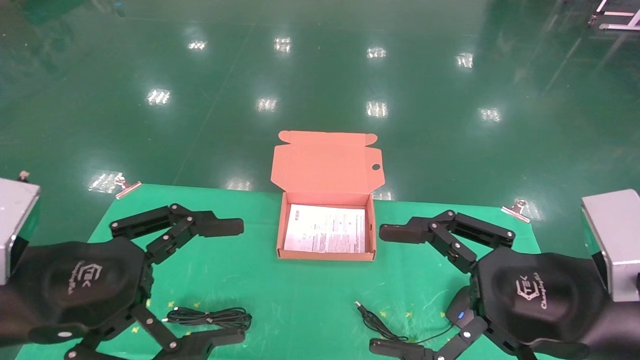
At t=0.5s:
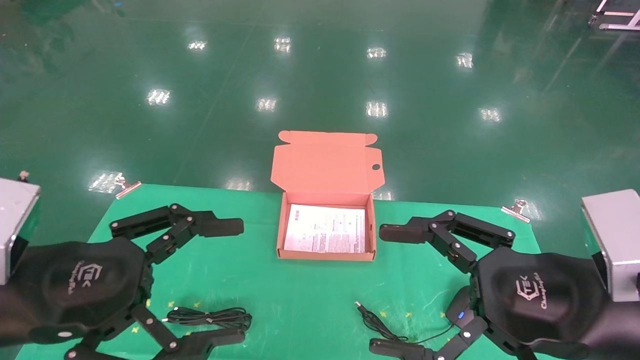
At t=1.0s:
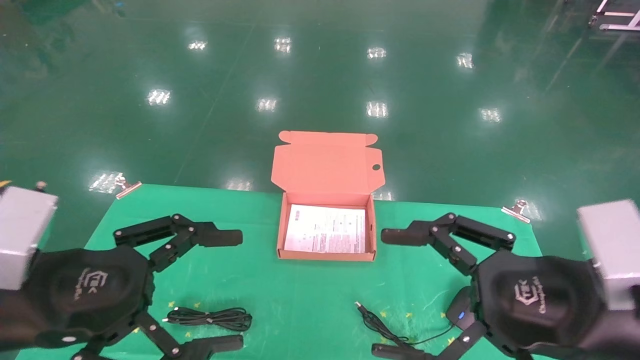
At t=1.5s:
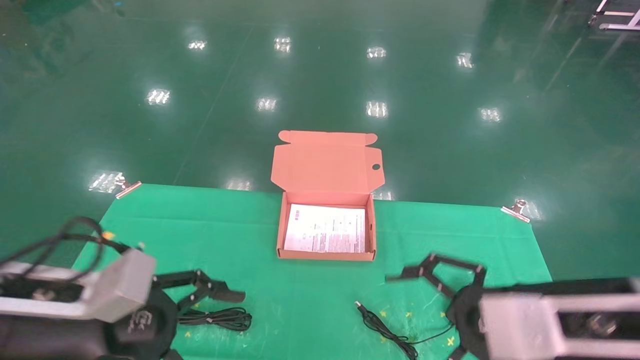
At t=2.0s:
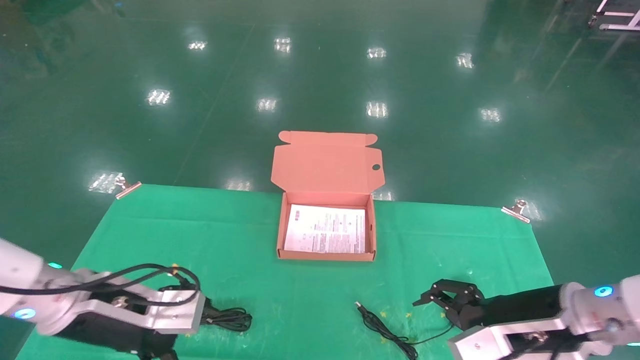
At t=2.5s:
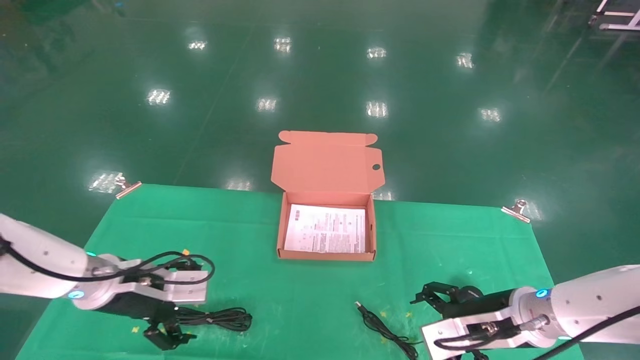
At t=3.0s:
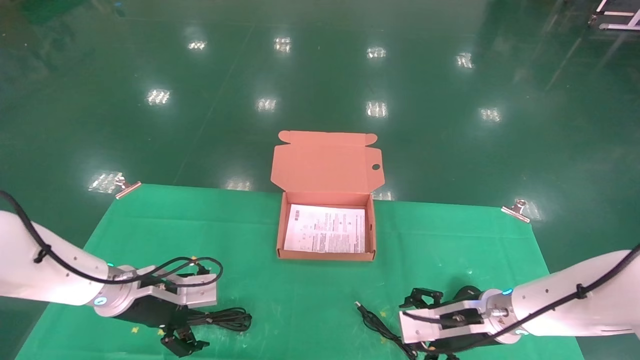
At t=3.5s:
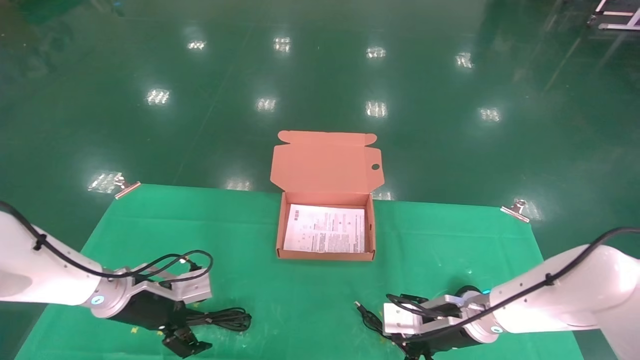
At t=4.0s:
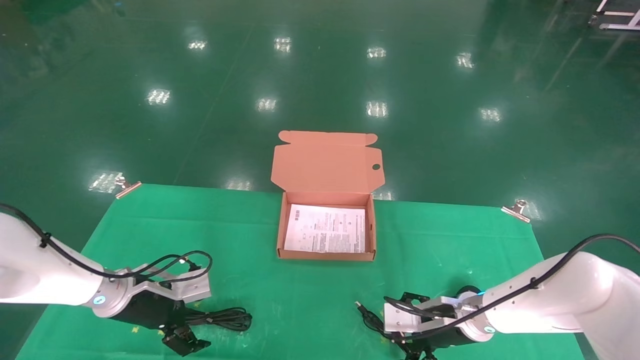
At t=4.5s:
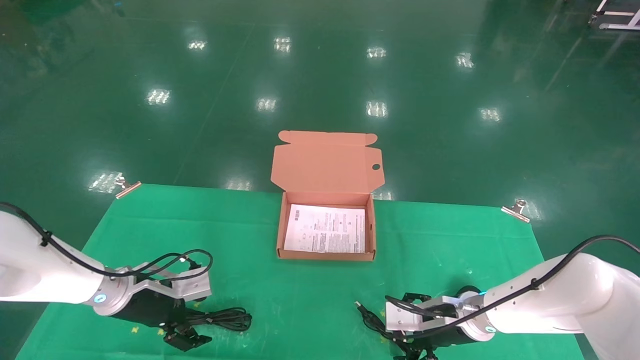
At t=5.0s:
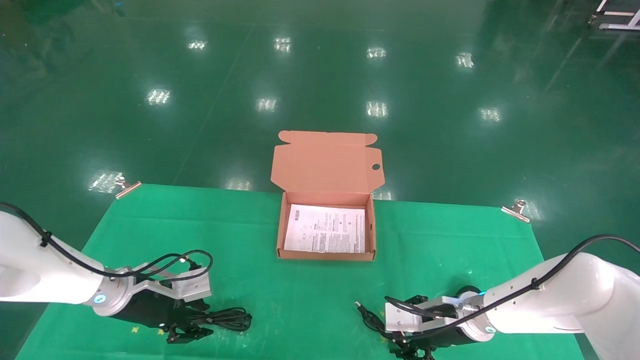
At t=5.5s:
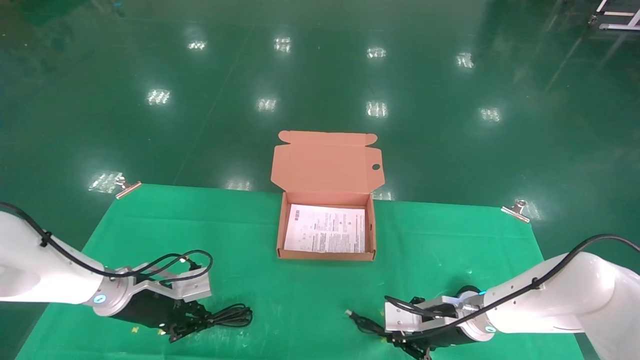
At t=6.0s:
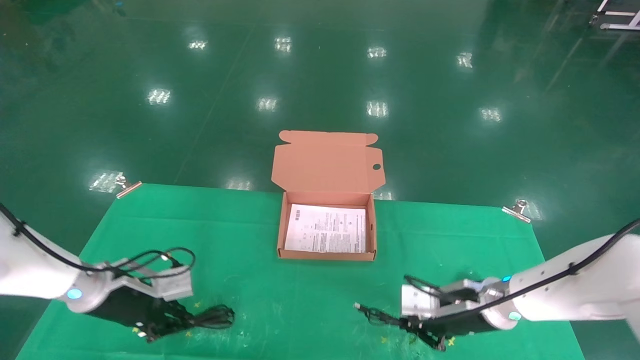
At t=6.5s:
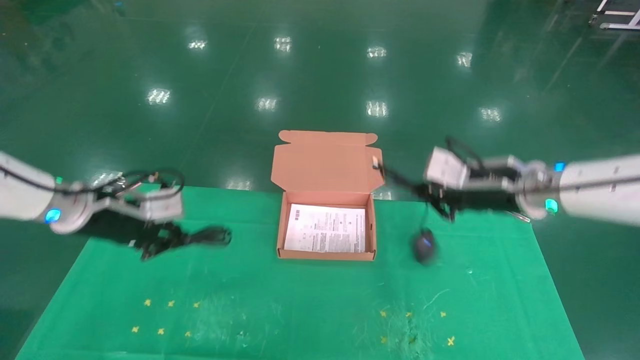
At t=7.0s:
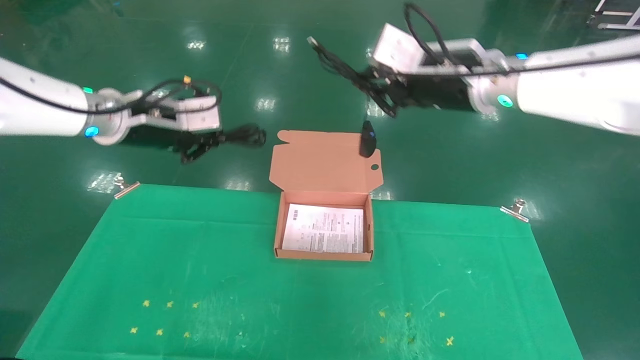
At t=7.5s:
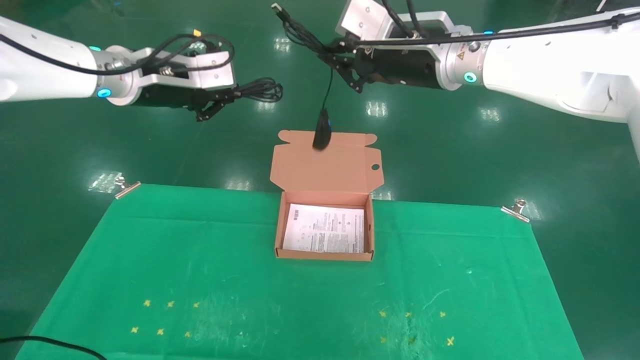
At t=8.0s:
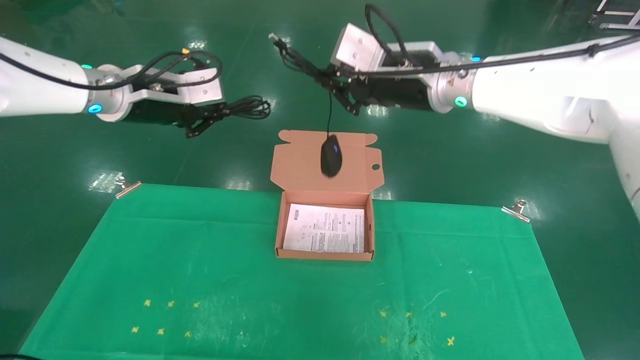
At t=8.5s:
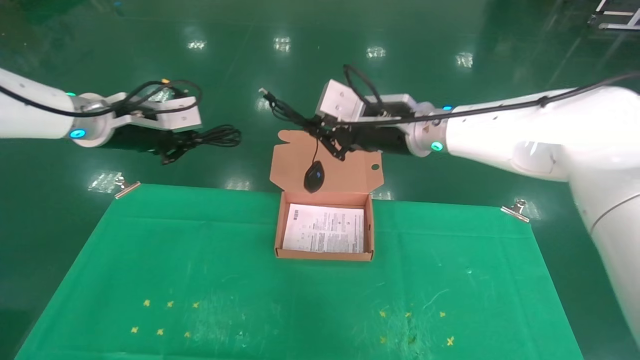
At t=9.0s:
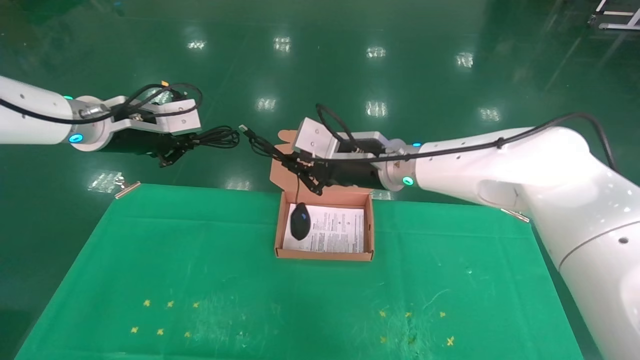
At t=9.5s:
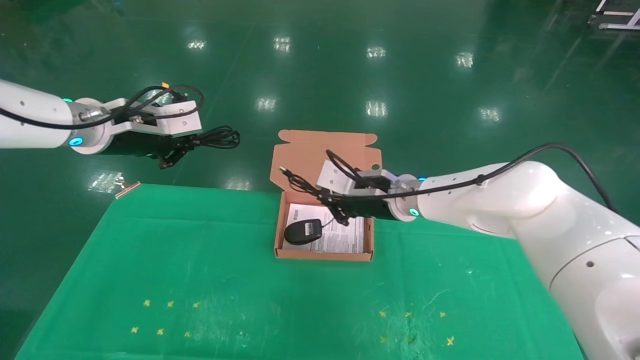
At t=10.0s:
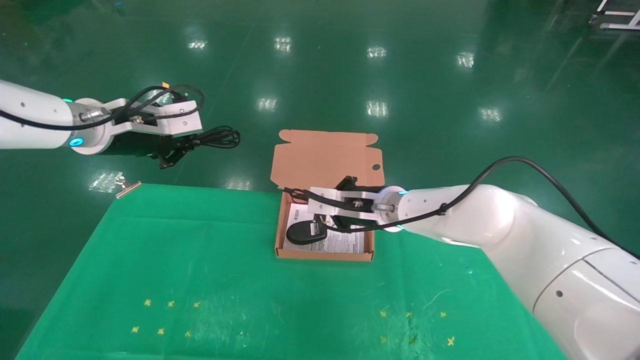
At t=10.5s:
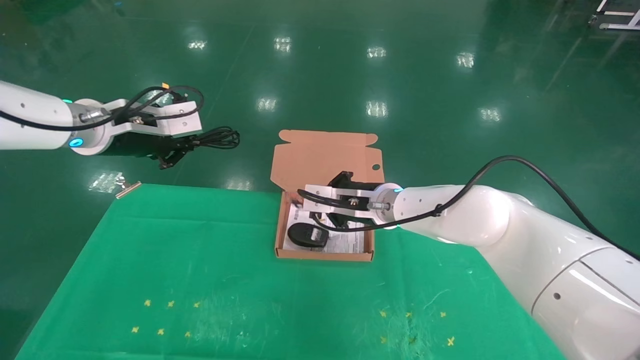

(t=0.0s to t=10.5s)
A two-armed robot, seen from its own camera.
Task of the whole recording: grasp data cable left put into box grasp mouse right put into box.
Step, t=1.0s - t=6.0s: Grab and pick up both the mouse and power cord from the accessory packaging area at the same time.
t=0.0s - t=2.0s: Both grippers move forward and downward, roughly 15 cm.
t=2.0s - t=4.0s: Both grippers travel together forward and downward, approximately 15 cm.
t=4.0s - t=6.5s: Both grippers travel together upward, about 20 cm. The left gripper closes, while the right gripper closes its fingers.
t=6.5s - t=8.5s: The left gripper shifts some 10 cm upward. Meanwhile the right gripper heads to the left, covering approximately 15 cm.
t=8.5s - t=10.5s: The right gripper shifts roughly 15 cm downward.

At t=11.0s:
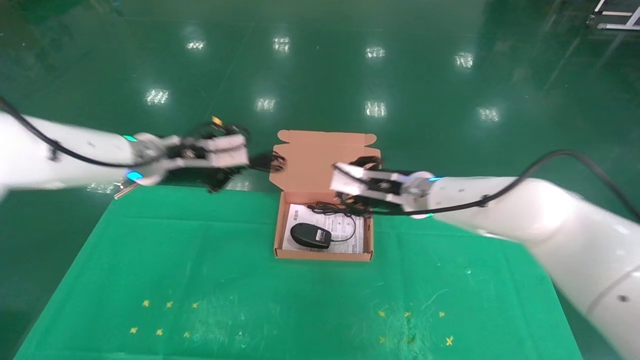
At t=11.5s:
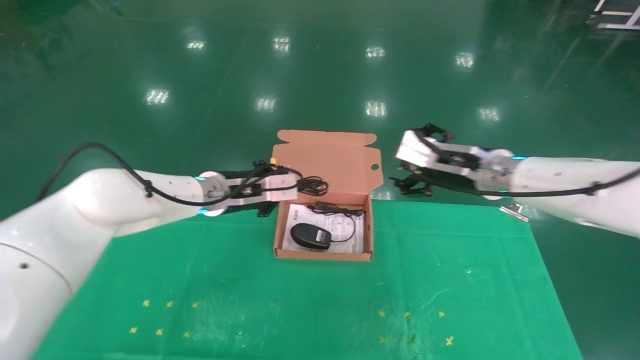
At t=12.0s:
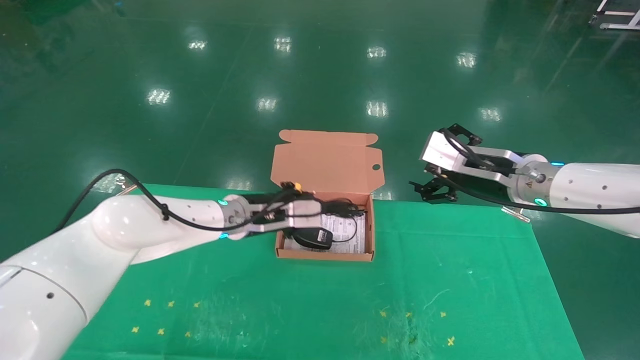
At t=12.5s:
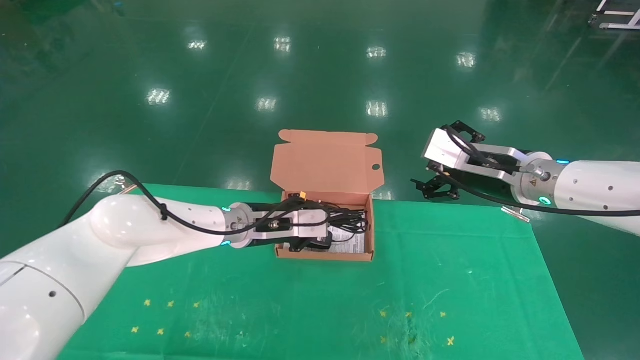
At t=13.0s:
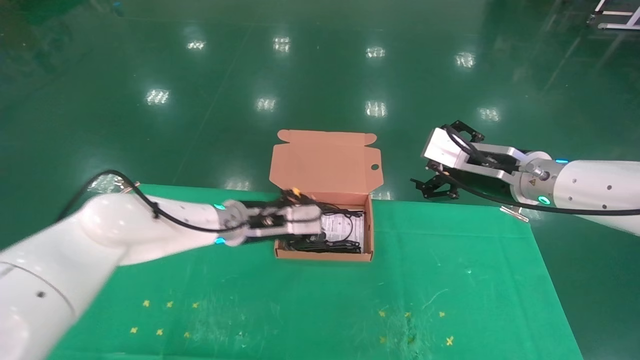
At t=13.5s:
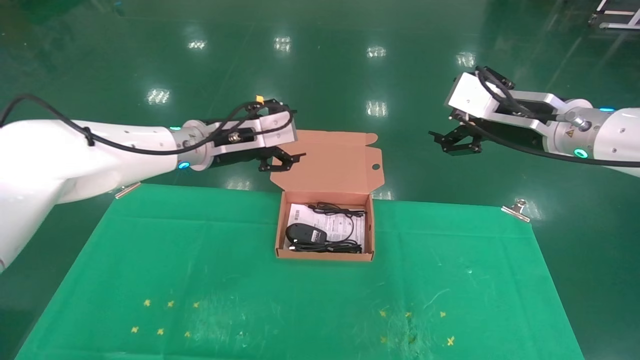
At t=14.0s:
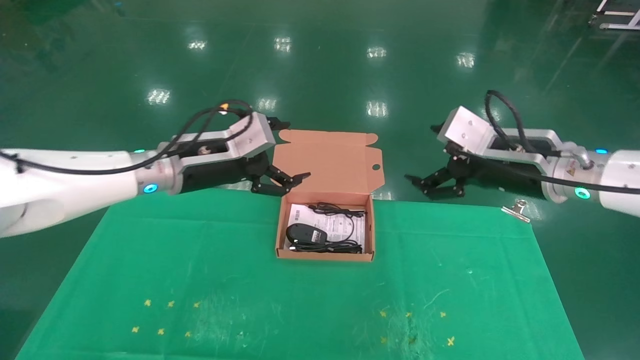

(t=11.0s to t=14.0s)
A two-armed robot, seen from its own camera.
Task of the whole recording: grasp data cable left put into box grasp mouse right put into box.
Step, t=11.0s - t=13.0s: Place the mouse and power cord into the box.
t=11.0s - t=12.5s: The right gripper moves to the right and backward, approximately 15 cm, and opens its fingers. Meanwhile the left gripper is displaced downward and to the right by about 15 cm.
t=12.5s - t=14.0s: The left gripper is displaced upward, to the left and backward by about 15 cm, and opens.

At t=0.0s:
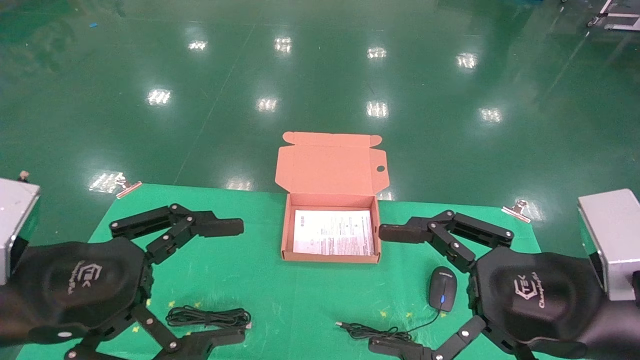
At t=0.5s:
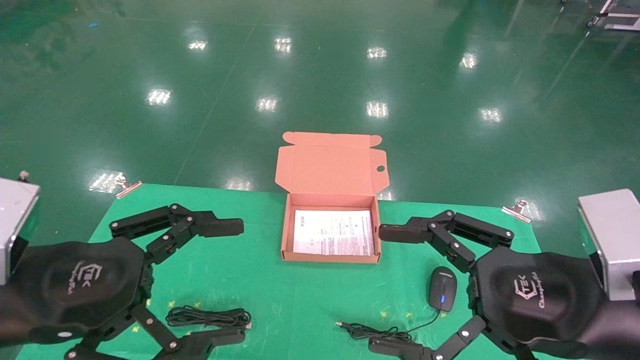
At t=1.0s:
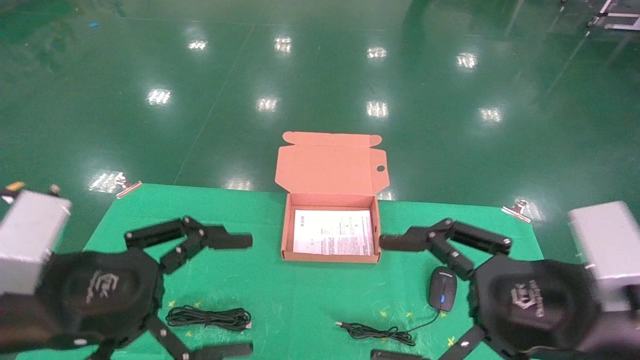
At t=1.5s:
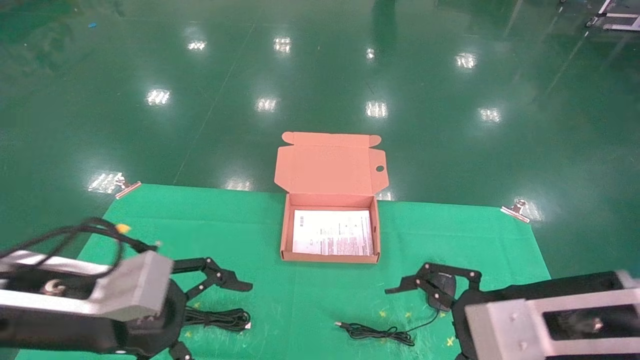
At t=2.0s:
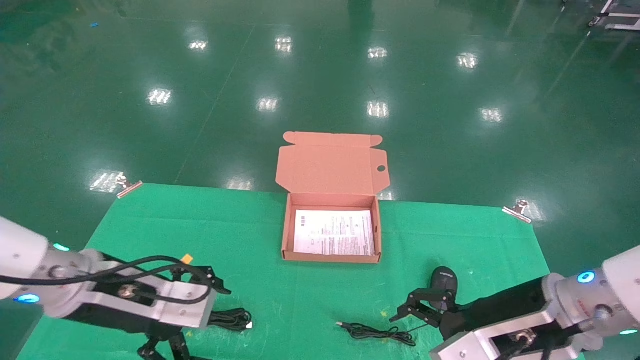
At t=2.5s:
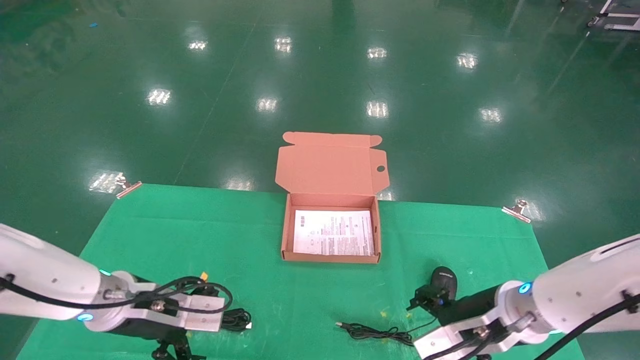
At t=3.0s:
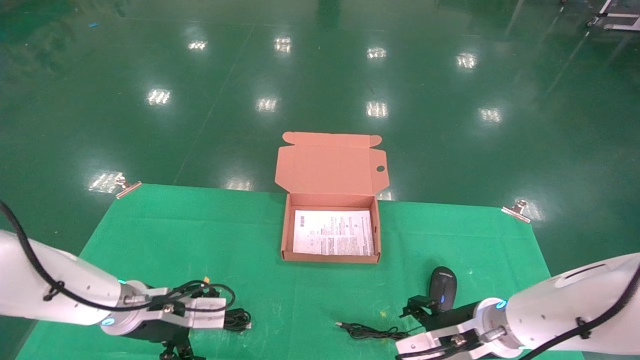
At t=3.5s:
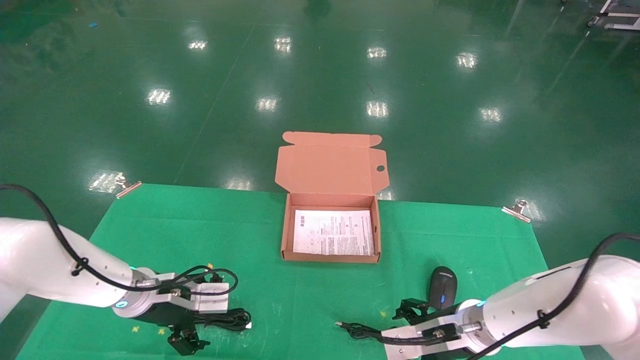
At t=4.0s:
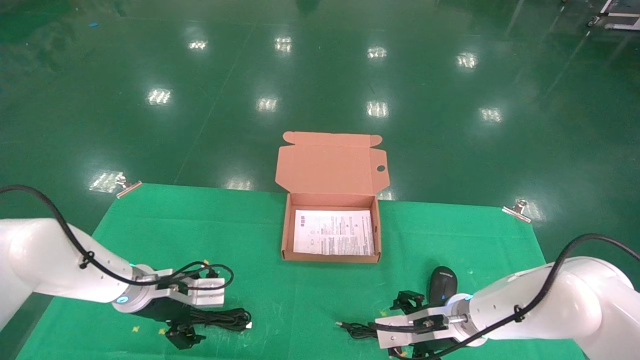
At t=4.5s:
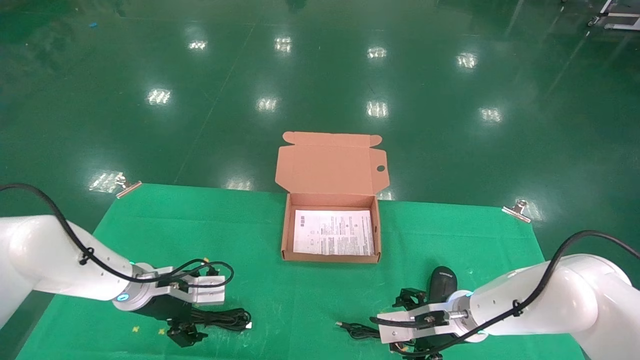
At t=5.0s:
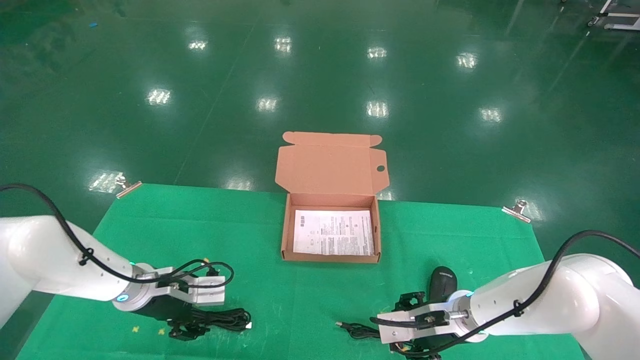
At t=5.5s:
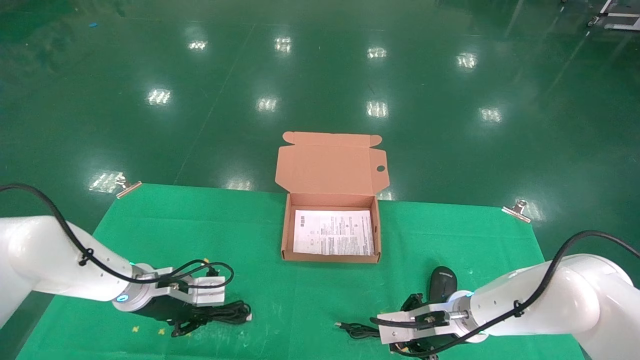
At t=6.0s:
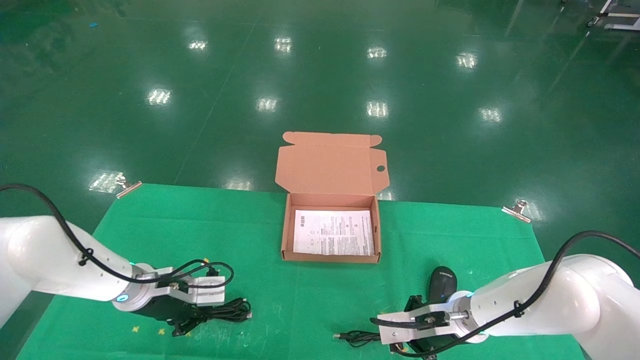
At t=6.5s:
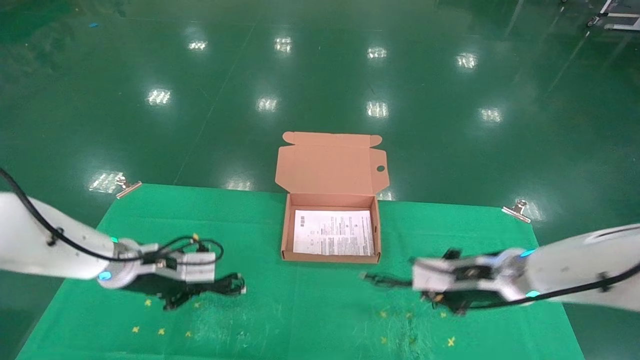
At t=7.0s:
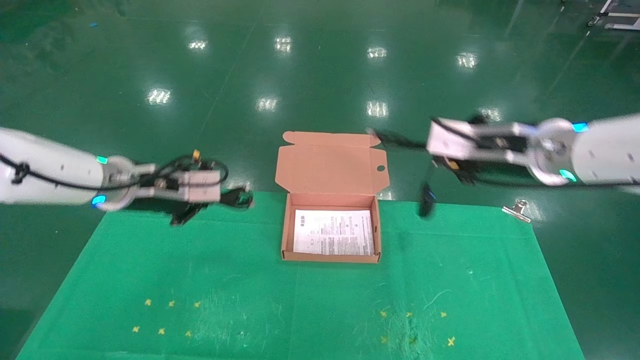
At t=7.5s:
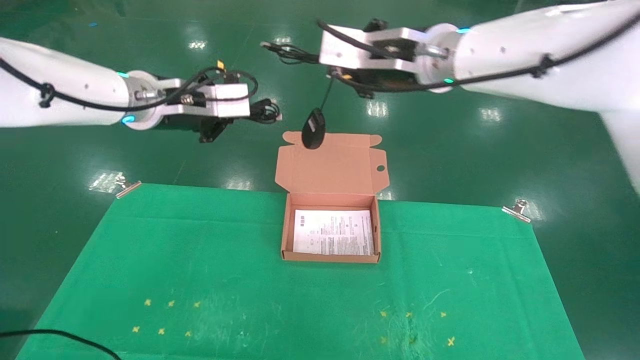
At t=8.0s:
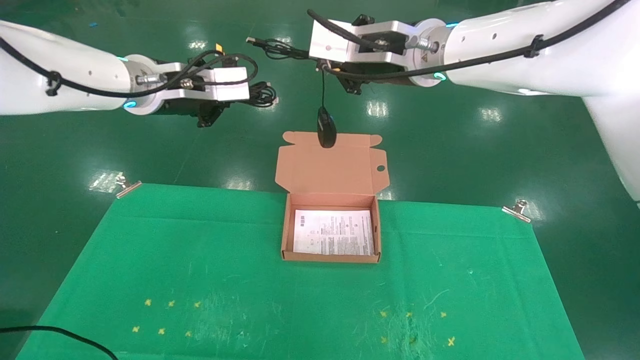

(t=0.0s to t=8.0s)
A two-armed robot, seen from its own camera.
Task of the whole recording: grasp data cable left put into box grasp mouse right put into box.
Step, t=1.5s - t=5.5s: Grab and pick up both the mouse and power cord from the accessory packaging area at the same time.
t=0.0s - t=2.0s: Both grippers move forward and downward, about 10 cm.
t=2.0s - t=4.0s: The left gripper heads forward and downward, covering approximately 15 cm. Meanwhile the right gripper heads downward and forward, covering roughly 15 cm.
t=4.0s - t=6.0s: The right gripper closes its fingers, while the left gripper closes.
t=6.0s - t=8.0s: Both grippers move upward, approximately 35 cm.
